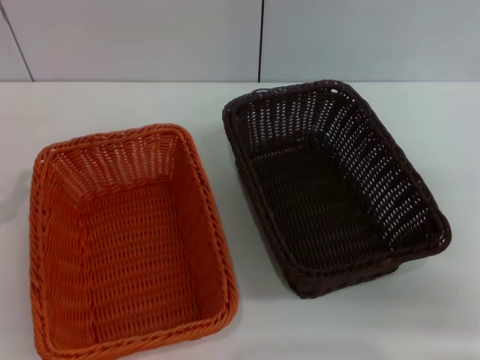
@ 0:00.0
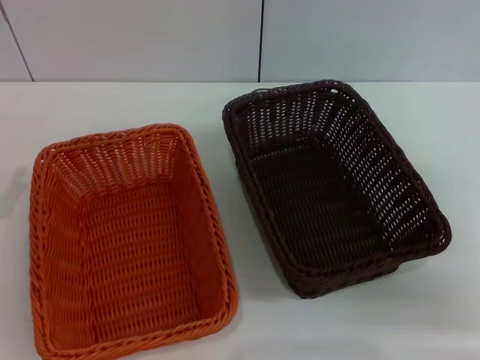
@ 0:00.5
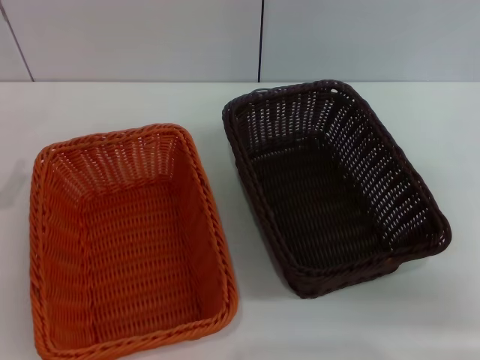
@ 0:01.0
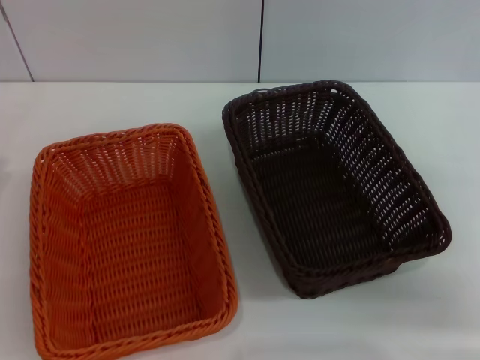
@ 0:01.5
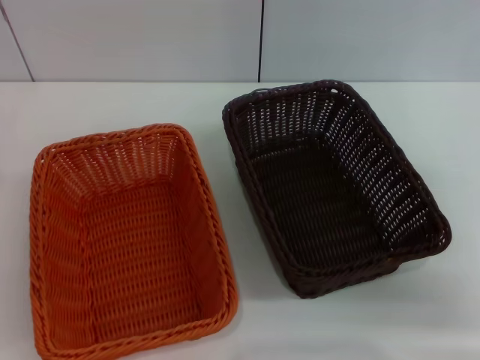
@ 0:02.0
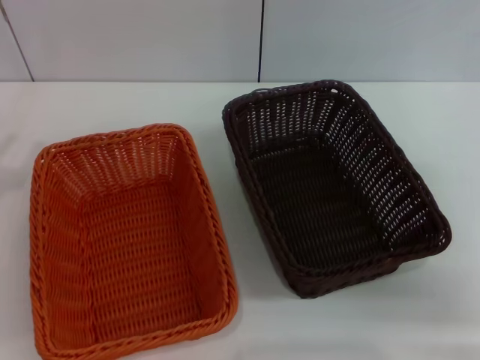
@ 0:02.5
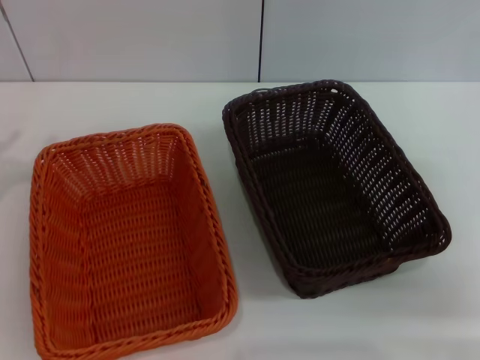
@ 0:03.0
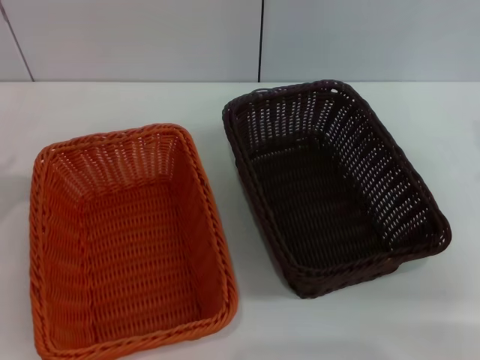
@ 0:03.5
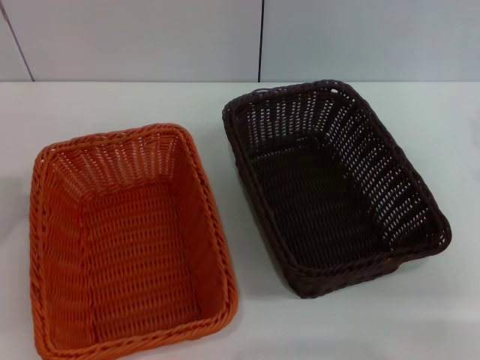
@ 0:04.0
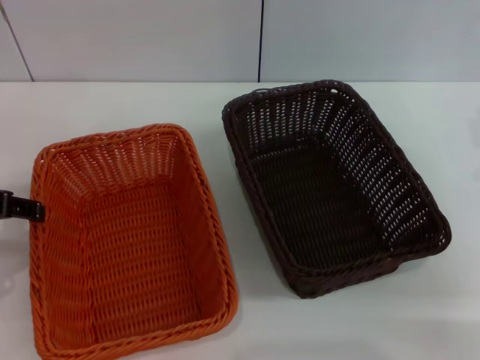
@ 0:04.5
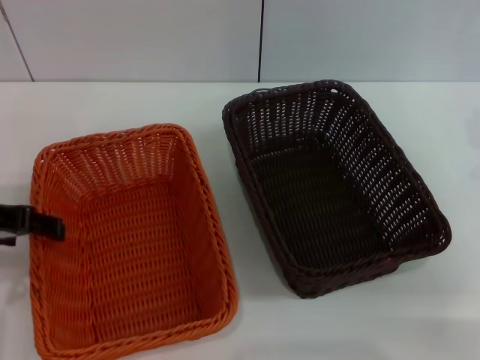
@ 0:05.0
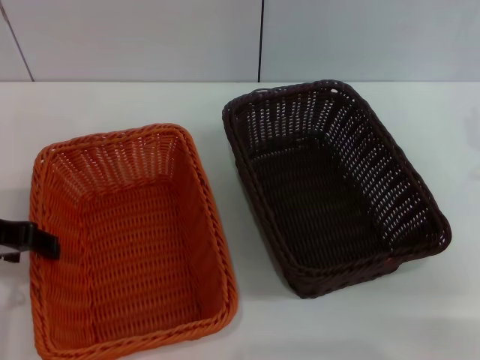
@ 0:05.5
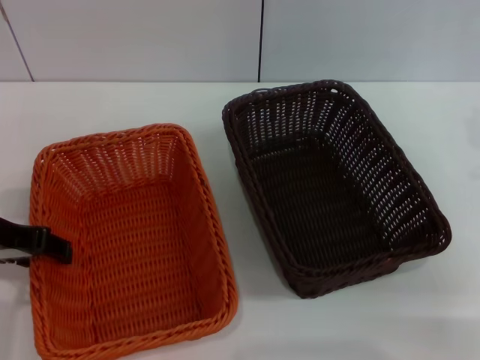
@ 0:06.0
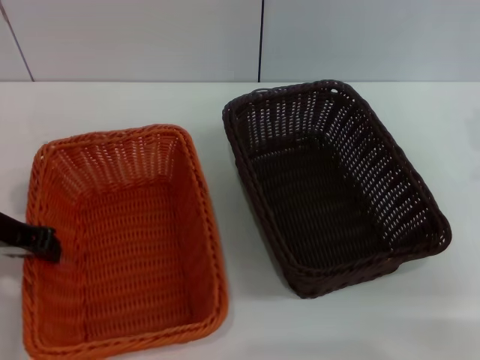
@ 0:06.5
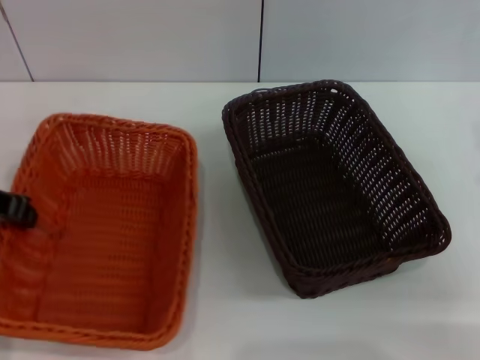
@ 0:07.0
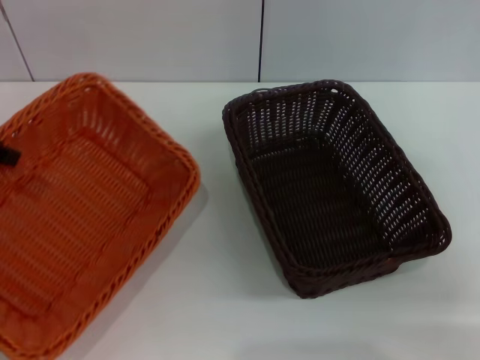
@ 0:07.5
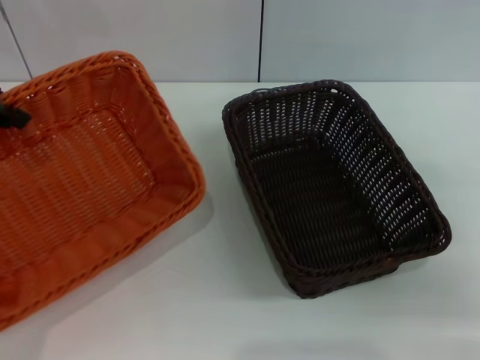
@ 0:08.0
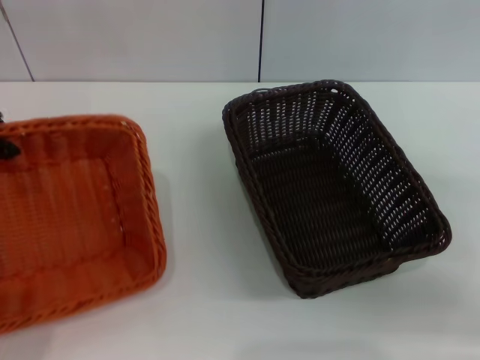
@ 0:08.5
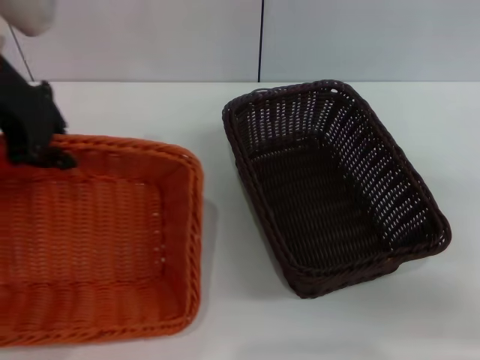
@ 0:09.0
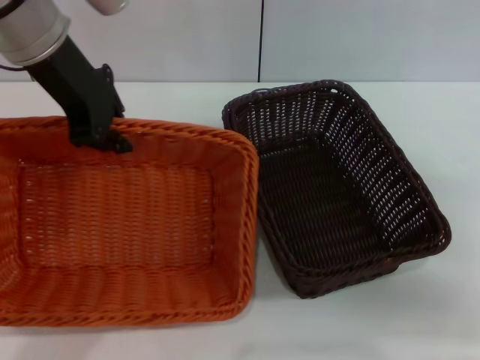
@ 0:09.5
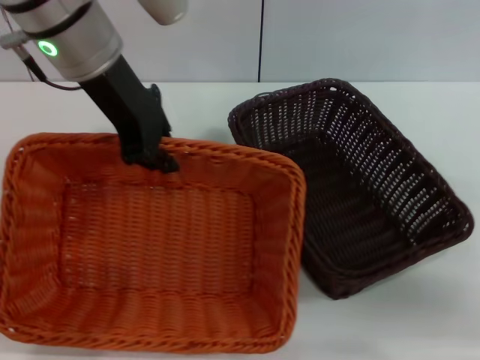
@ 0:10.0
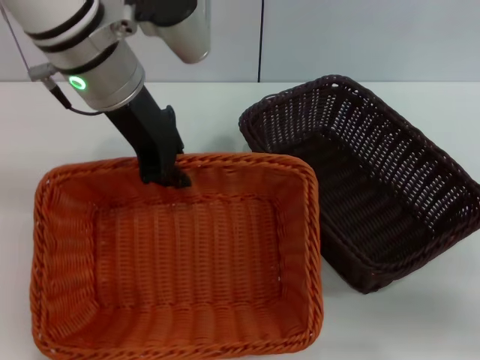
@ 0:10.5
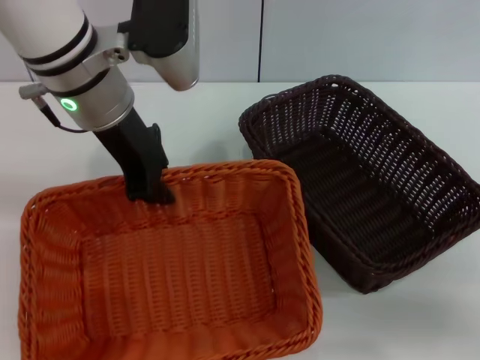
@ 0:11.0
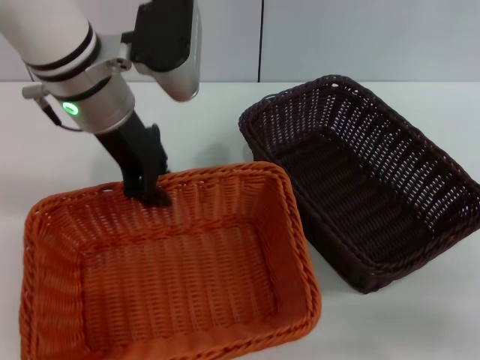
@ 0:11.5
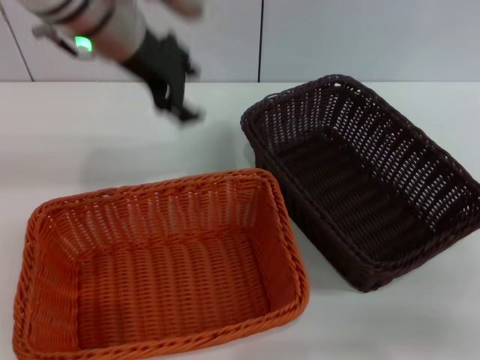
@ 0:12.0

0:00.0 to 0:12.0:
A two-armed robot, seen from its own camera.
Step, 0:00.0 to 0:06.5: Pick up the light basket with the left gripper.
Step, 0:07.0 to 0:11.5: Place the light basket in the center of view with the left gripper.
0:04.0 to 0:06.0: The left gripper heads to the right and downward, covering some 10 cm.
0:06.0 to 0:08.0: The left gripper shifts roughly 15 cm upward and forward, and closes up.
0:08.0 to 0:10.0: The left gripper heads to the right, covering some 15 cm.
0:10.0 to 0:12.0: The left gripper opens up.

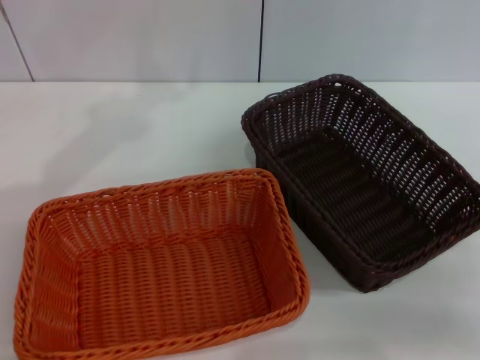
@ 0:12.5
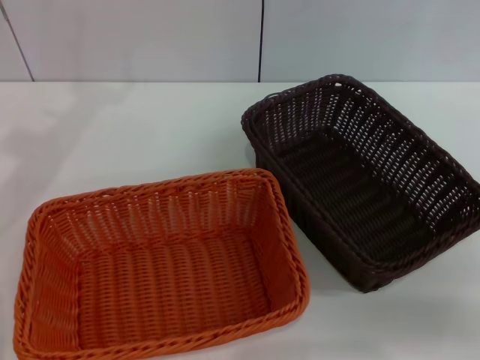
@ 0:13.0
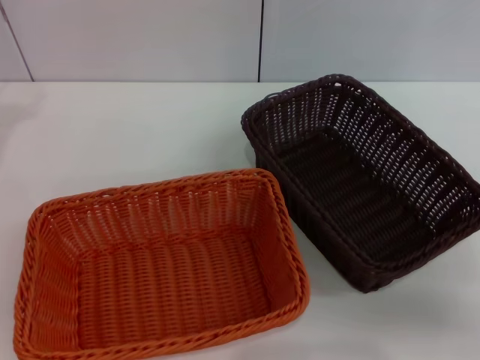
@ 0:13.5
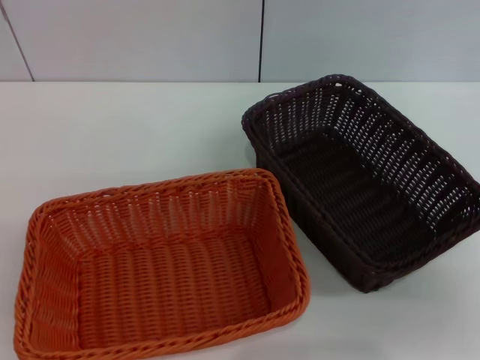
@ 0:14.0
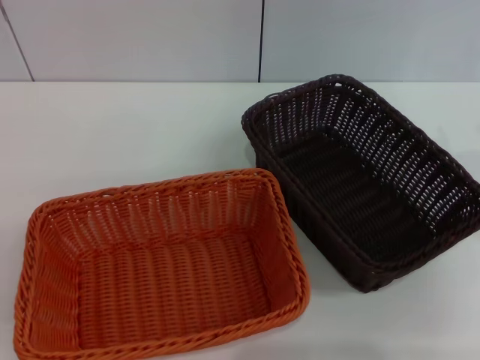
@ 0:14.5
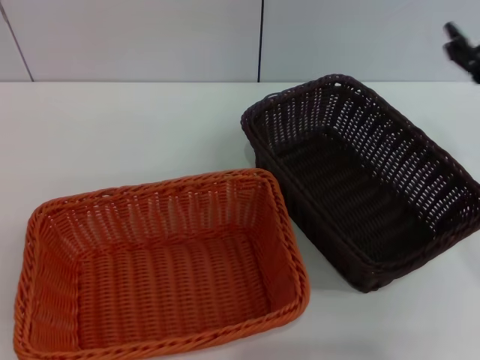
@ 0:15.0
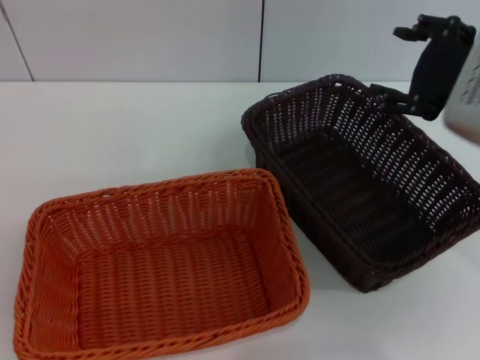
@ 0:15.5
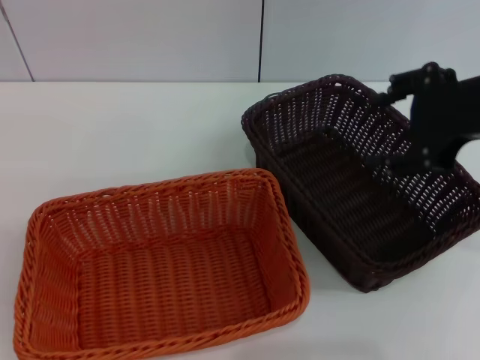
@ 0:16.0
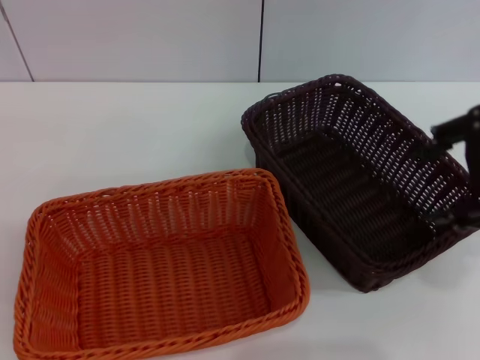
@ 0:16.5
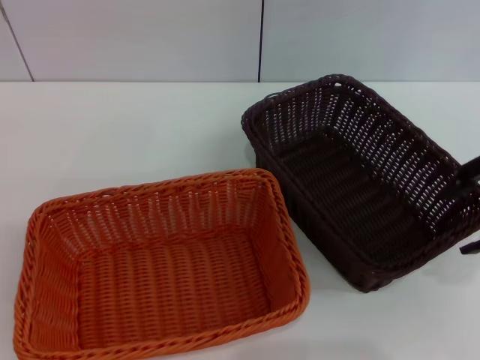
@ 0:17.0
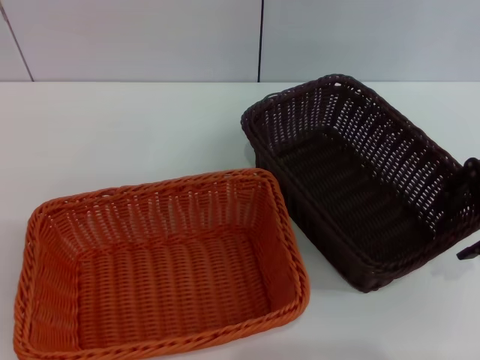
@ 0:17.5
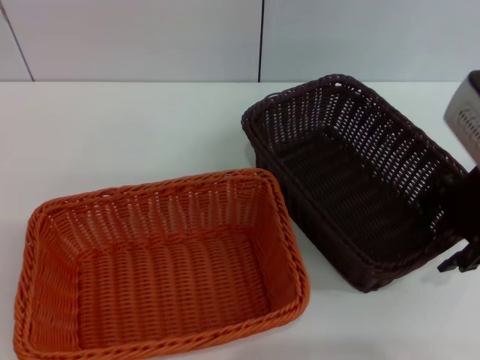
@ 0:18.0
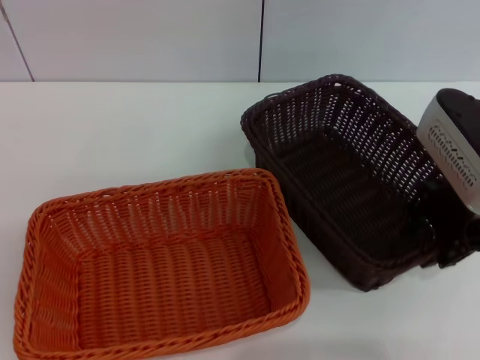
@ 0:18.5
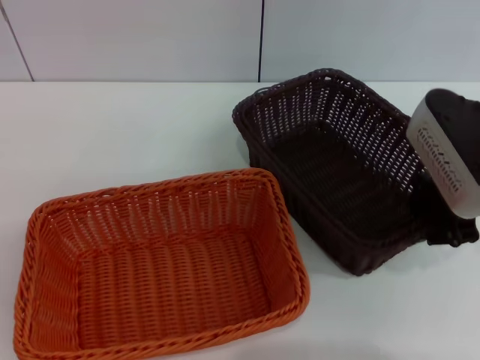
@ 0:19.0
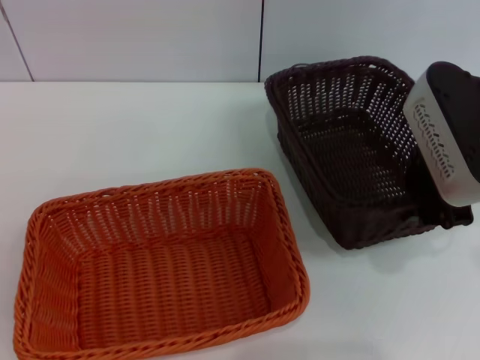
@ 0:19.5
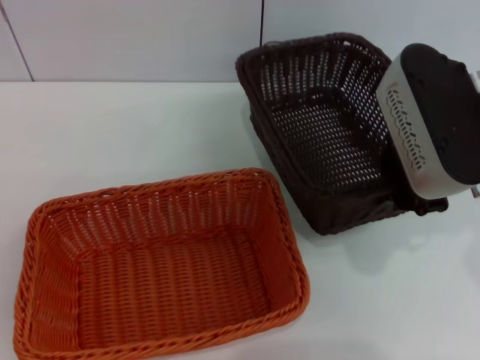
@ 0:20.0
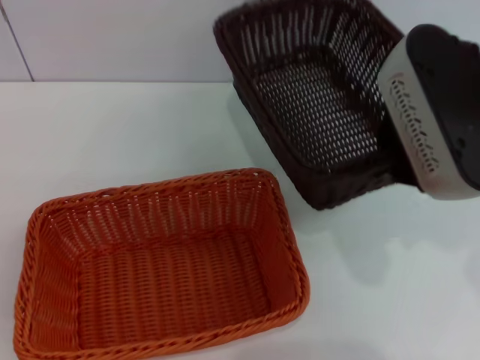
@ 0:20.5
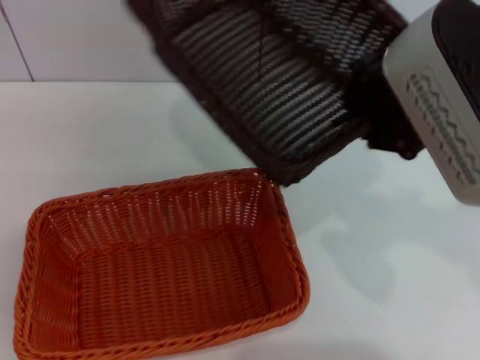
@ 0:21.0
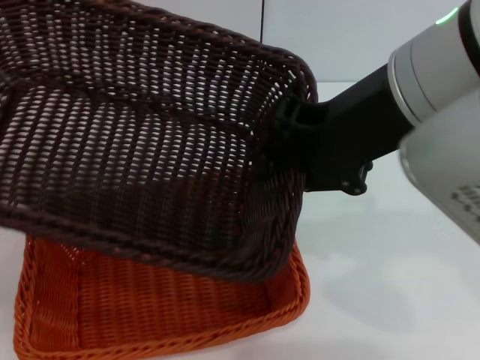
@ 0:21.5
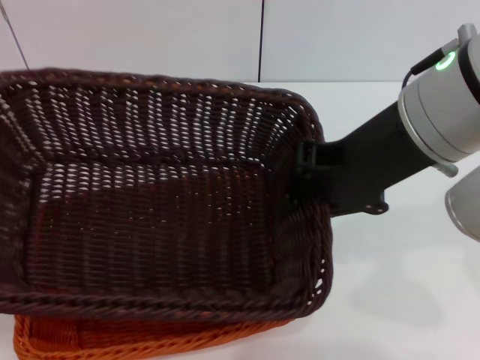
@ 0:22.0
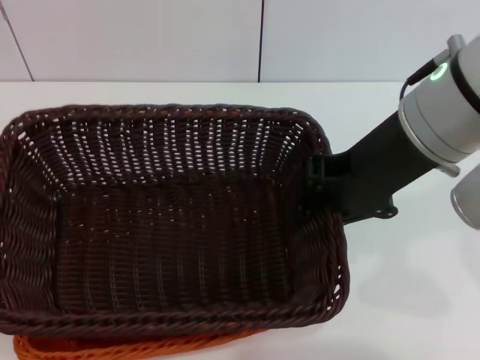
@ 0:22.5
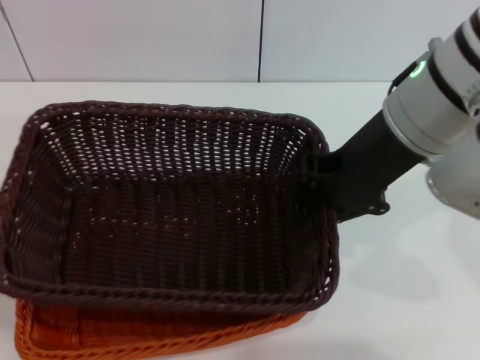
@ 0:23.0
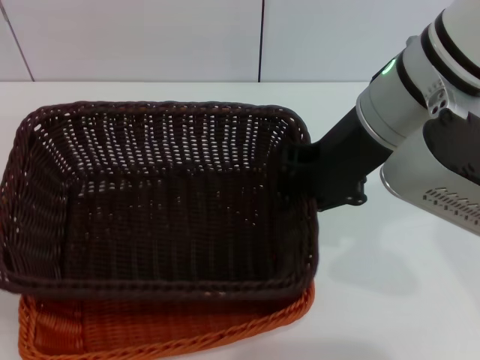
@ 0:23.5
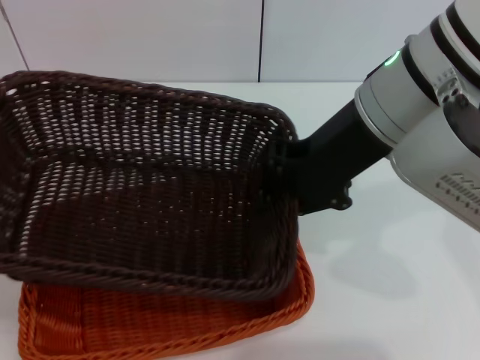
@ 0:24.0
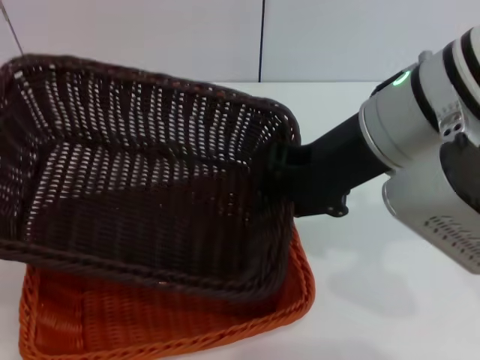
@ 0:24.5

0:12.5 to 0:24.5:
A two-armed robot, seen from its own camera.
Step, 0:12.5 to 0:19.5: Pick up the dark basket with the right gripper.
0:12.5 to 0:14.5: The right gripper is displaced upward and to the left by some 10 cm.
0:14.5 to 0:16.5: The right gripper shifts some 10 cm upward.
0:16.5 to 0:18.5: The right gripper shifts roughly 15 cm downward and forward.
0:18.5 to 0:20.5: The right gripper is displaced upward and to the left by some 10 cm, and closes its fingers.

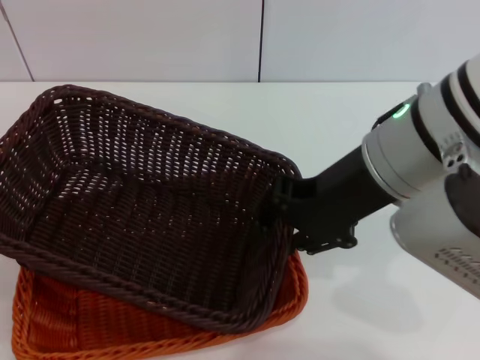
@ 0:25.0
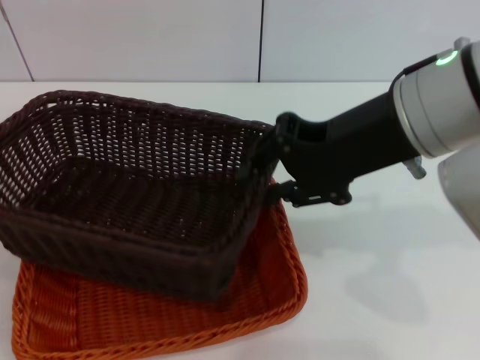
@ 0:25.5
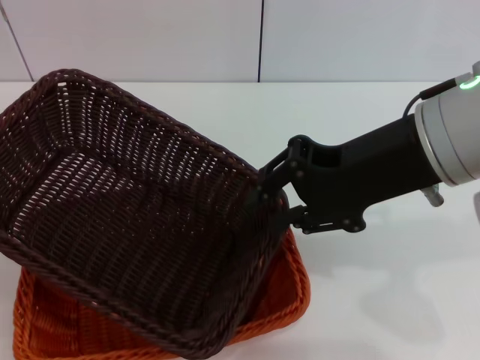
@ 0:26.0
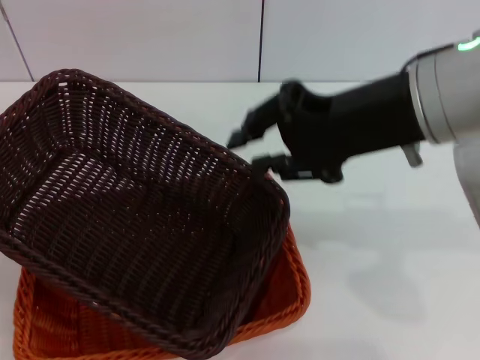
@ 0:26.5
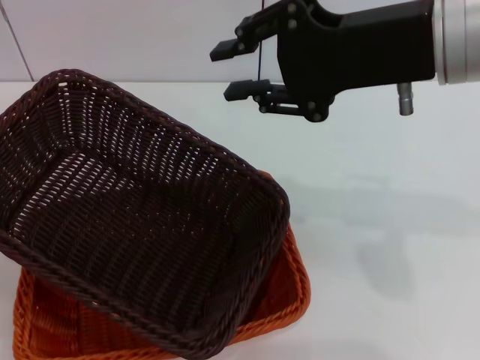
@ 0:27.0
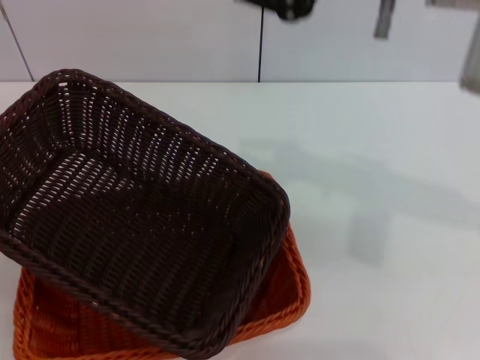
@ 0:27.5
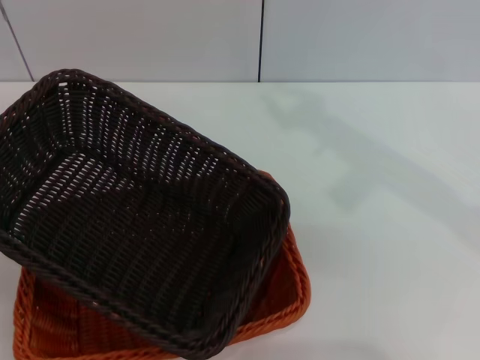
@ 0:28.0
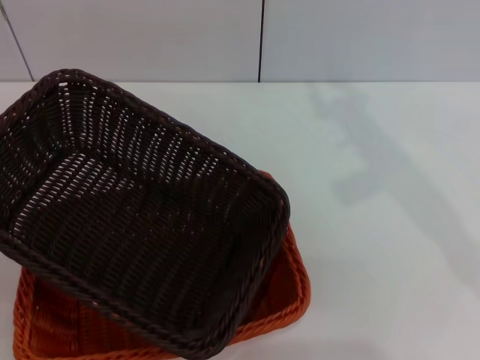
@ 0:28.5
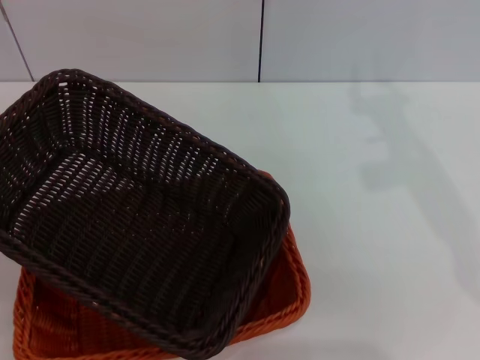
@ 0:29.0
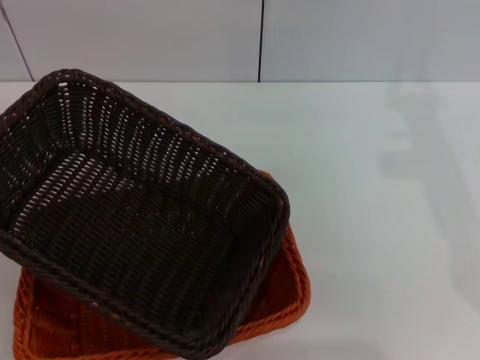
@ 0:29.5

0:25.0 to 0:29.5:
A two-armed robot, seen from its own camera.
0:25.0 to 0:27.0: The right gripper moves upward, about 5 cm.
0:27.0 to 0:29.5: The right gripper is displaced to the right and forward by approximately 10 cm.
